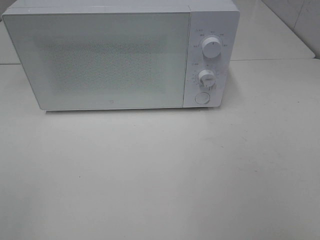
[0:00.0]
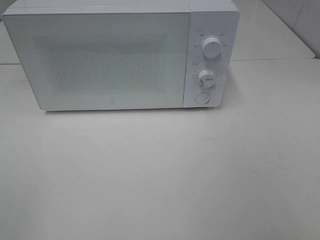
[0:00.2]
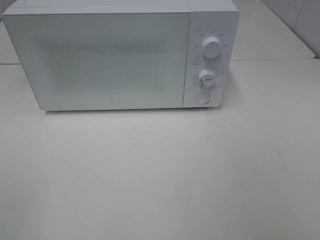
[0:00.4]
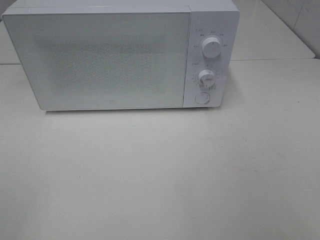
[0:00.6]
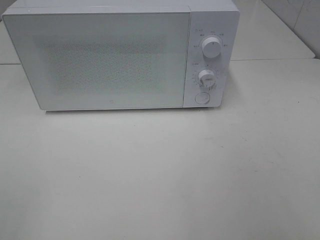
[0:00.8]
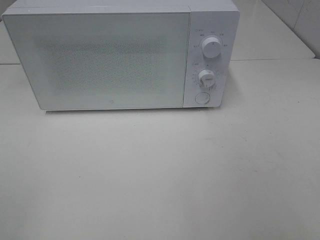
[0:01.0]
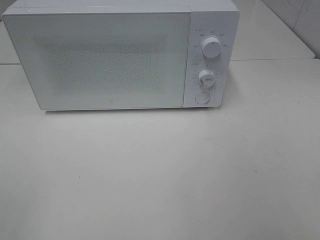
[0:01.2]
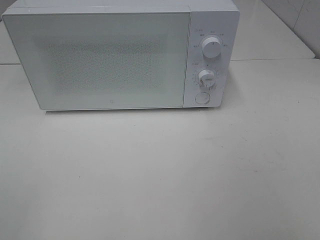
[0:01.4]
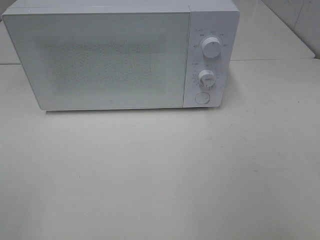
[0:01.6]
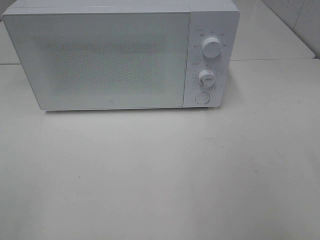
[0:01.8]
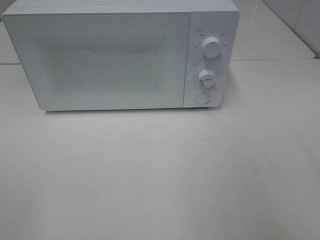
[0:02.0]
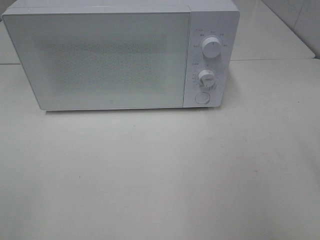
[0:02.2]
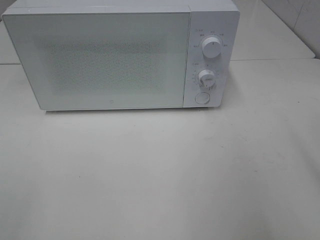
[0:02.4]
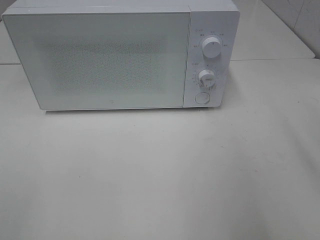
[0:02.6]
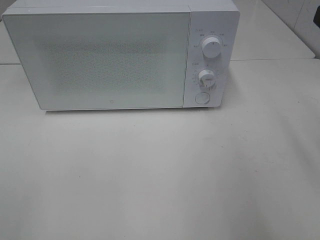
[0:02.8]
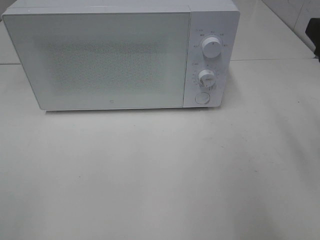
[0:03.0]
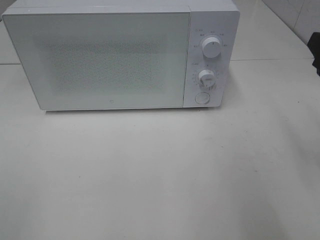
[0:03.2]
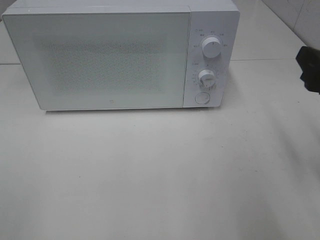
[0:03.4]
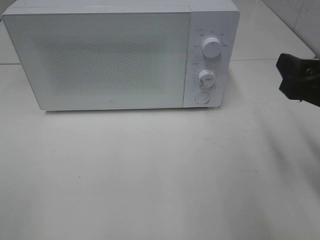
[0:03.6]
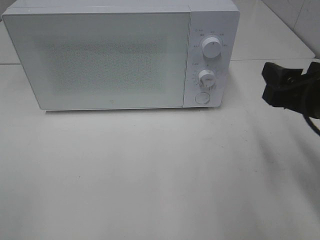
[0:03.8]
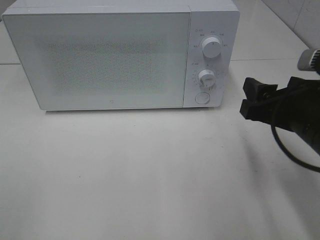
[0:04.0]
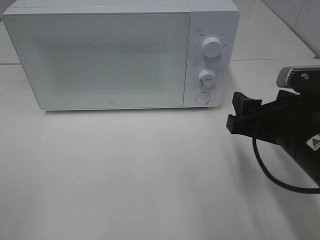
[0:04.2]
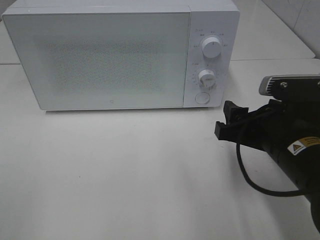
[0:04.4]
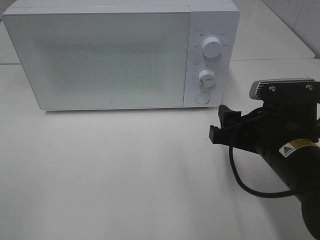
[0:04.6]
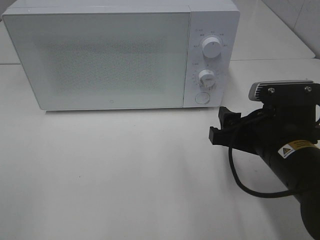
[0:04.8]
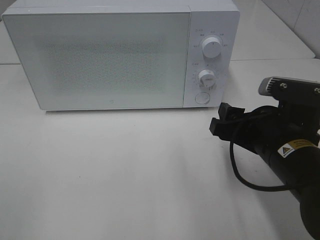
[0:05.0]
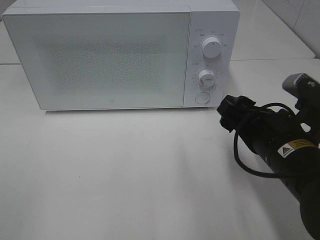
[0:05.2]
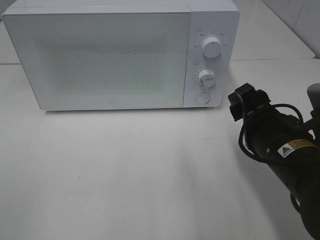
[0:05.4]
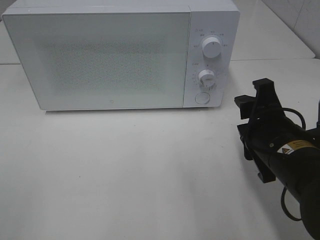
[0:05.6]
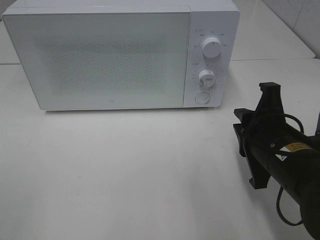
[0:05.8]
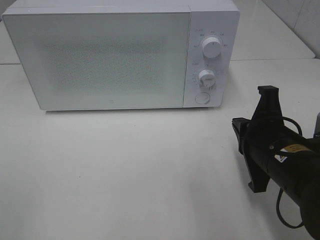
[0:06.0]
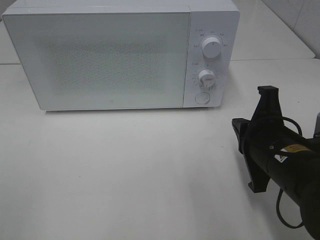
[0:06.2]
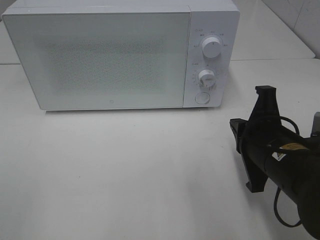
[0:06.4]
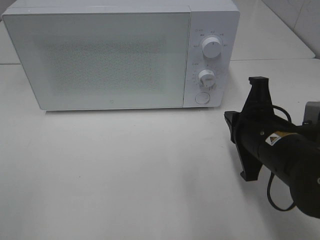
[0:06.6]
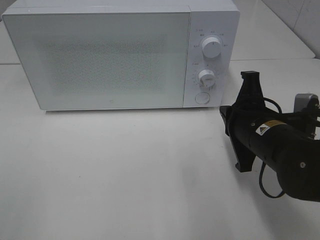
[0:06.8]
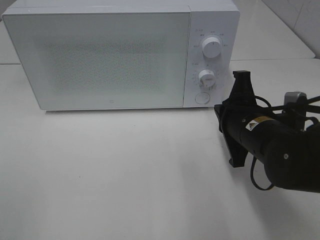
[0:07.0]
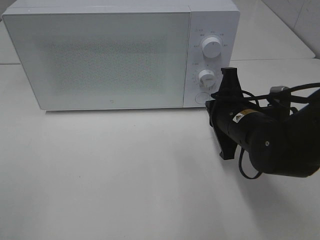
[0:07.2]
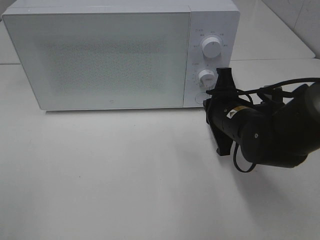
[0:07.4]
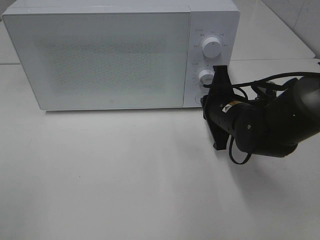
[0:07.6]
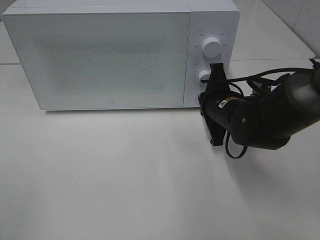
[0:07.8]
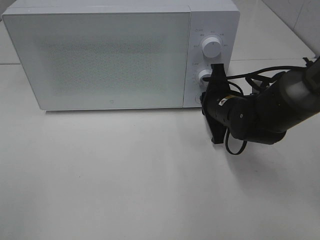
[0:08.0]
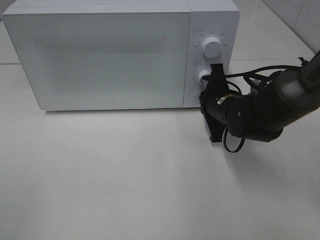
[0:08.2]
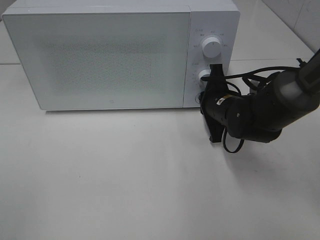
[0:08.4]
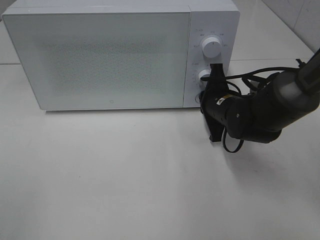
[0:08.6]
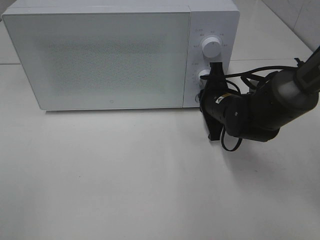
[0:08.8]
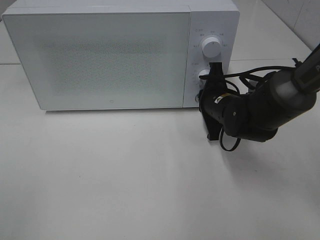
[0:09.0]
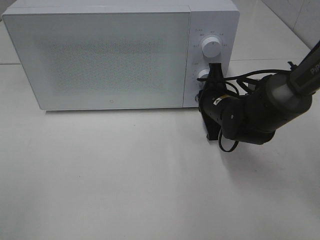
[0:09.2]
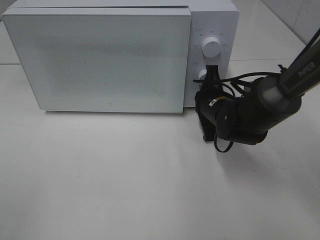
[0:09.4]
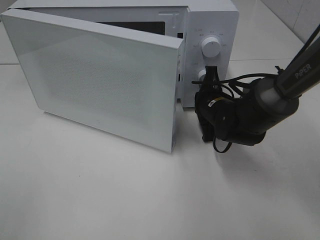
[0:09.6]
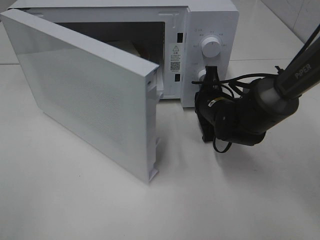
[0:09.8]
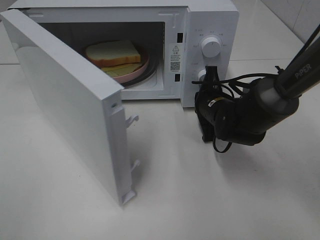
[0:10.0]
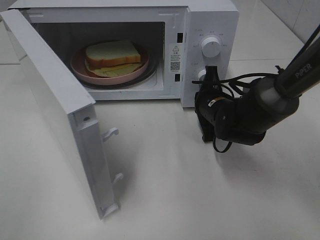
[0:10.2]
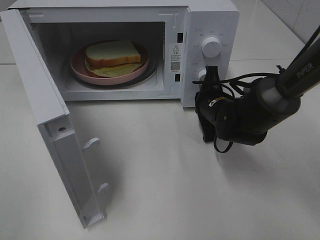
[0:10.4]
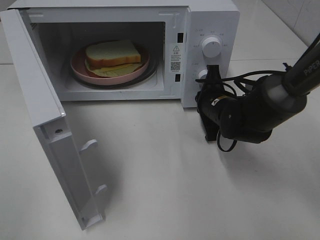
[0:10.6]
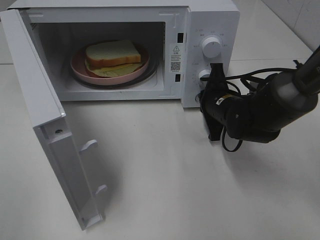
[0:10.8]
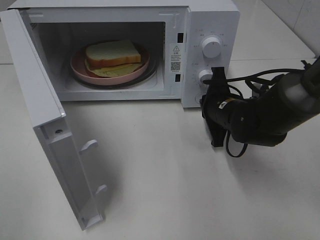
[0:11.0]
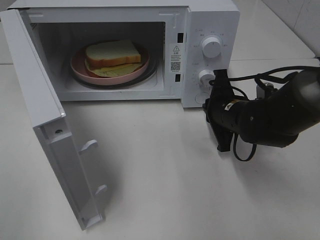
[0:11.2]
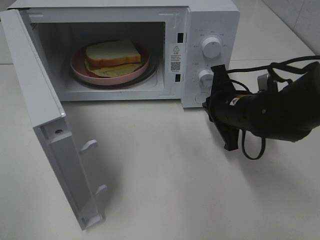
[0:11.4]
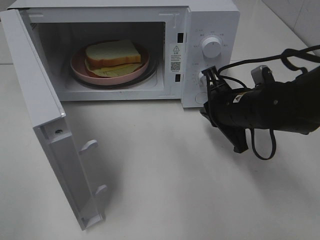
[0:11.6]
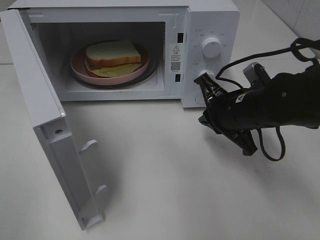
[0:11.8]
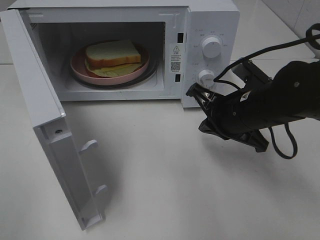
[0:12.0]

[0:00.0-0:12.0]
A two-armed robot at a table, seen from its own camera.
Task of the whole recording: Heat Sandwich.
Step, 0:00.0 to 0:11.2: Right hand: press the switch.
0:03.0 to 0:04.4: The right gripper is displaced downward and to the left by approximately 15 cm.
0:04.4 to 0:06.0: The right gripper closes.
0:06.0 to 0:07.6: The right gripper moves forward, about 10 cm.
0:07.6 to 0:09.0: There are only small adjustments of the grippers.
0:10.4 to 0:12.0: The right gripper heads backward and upward, covering some 10 cm.

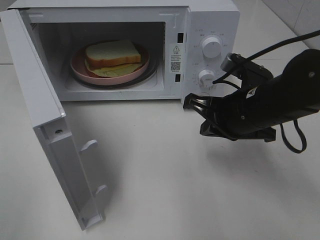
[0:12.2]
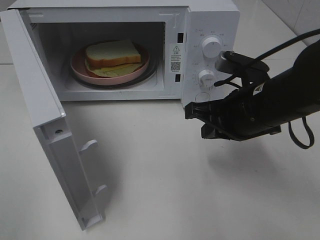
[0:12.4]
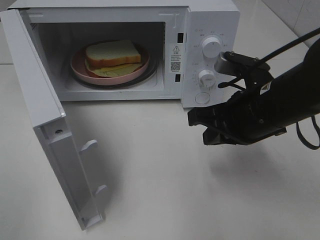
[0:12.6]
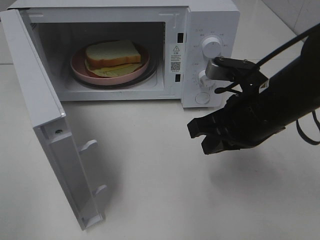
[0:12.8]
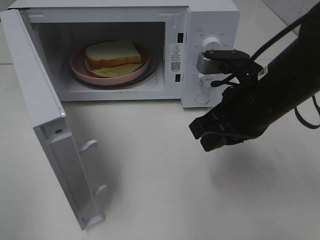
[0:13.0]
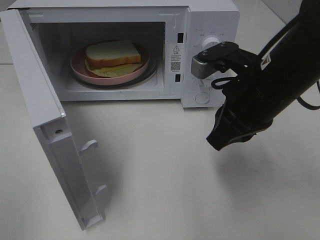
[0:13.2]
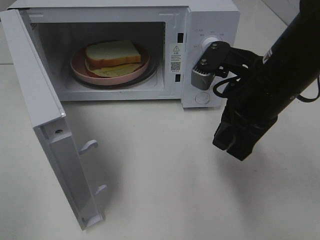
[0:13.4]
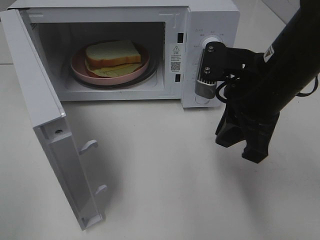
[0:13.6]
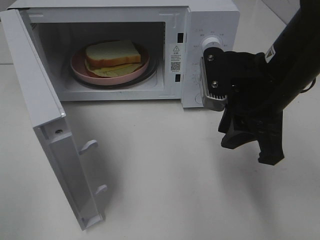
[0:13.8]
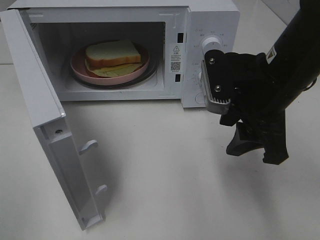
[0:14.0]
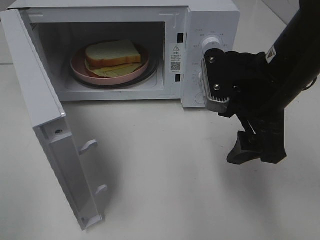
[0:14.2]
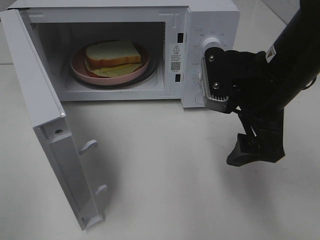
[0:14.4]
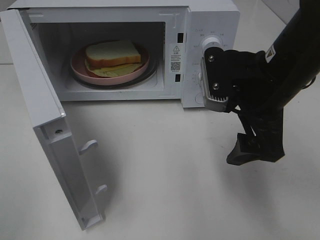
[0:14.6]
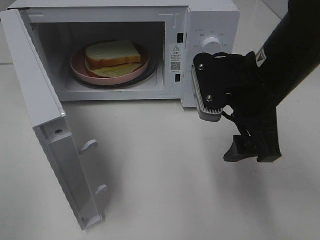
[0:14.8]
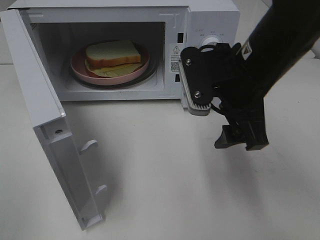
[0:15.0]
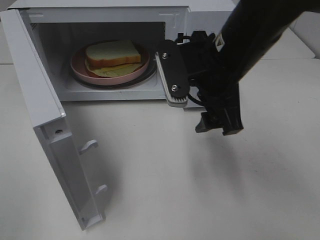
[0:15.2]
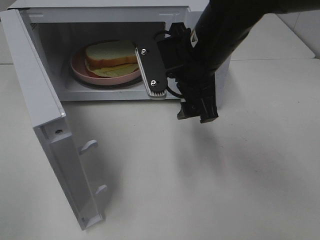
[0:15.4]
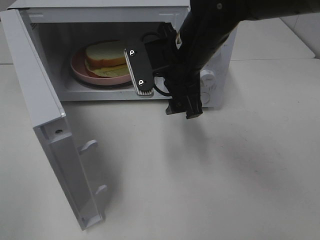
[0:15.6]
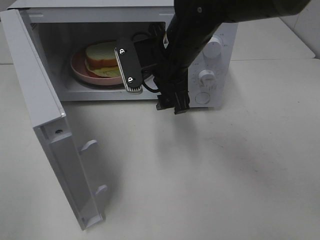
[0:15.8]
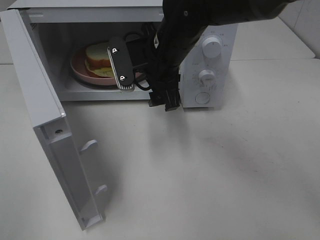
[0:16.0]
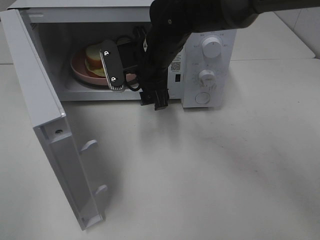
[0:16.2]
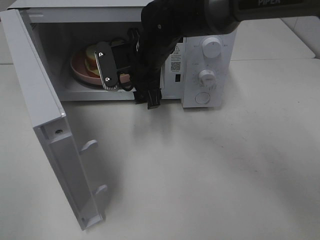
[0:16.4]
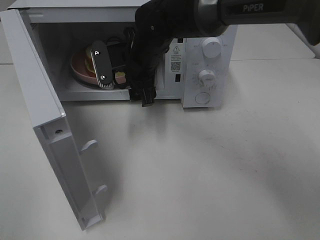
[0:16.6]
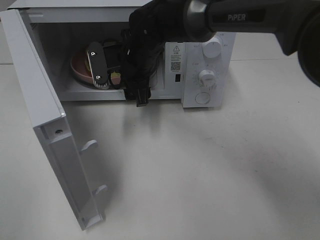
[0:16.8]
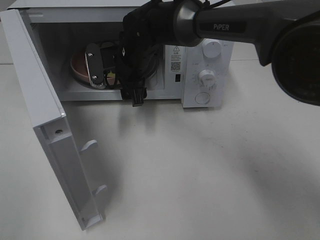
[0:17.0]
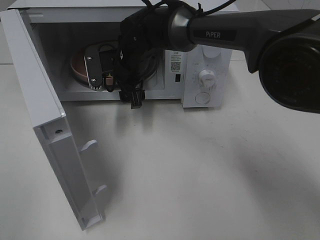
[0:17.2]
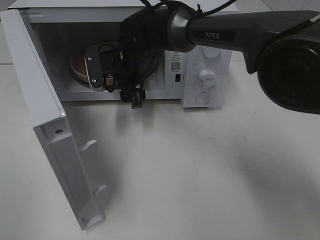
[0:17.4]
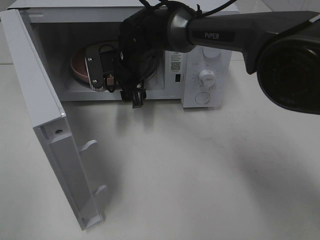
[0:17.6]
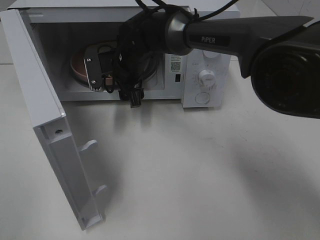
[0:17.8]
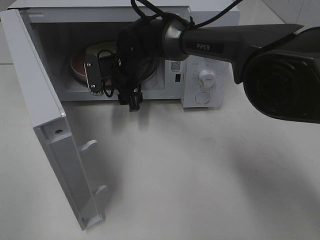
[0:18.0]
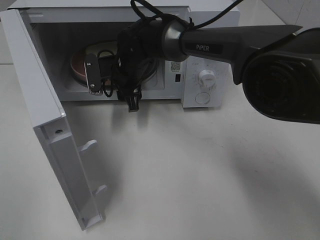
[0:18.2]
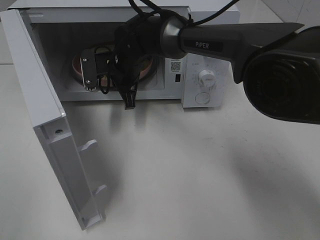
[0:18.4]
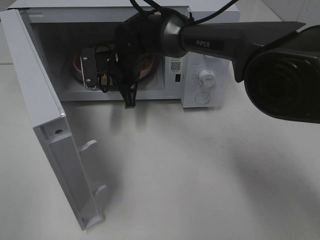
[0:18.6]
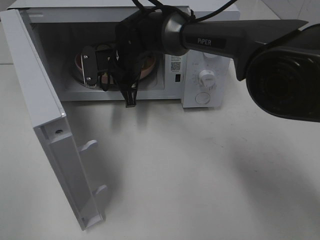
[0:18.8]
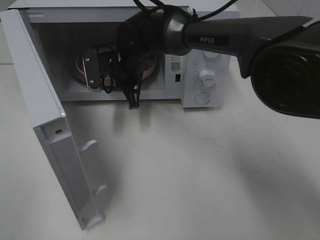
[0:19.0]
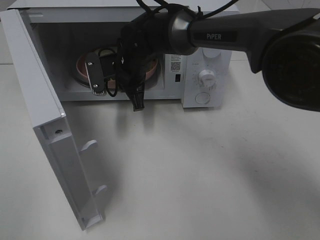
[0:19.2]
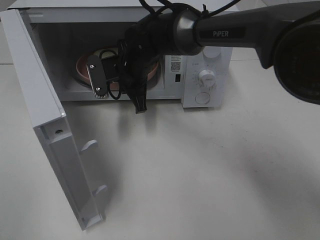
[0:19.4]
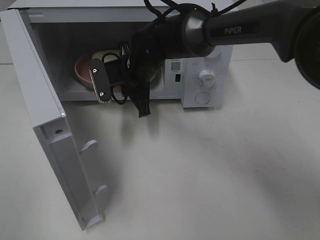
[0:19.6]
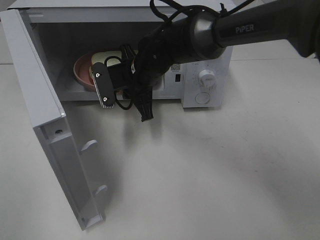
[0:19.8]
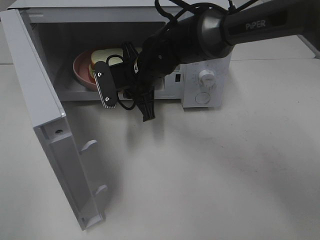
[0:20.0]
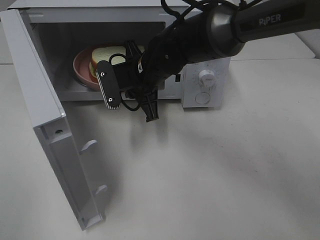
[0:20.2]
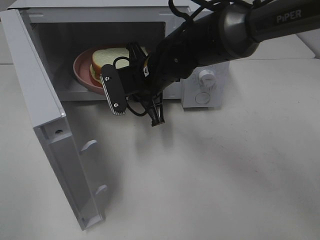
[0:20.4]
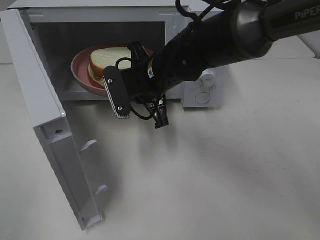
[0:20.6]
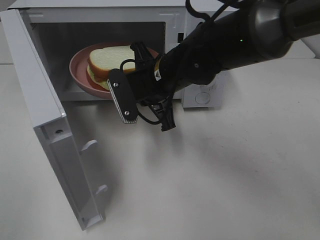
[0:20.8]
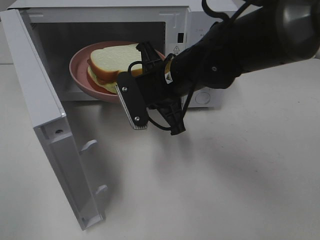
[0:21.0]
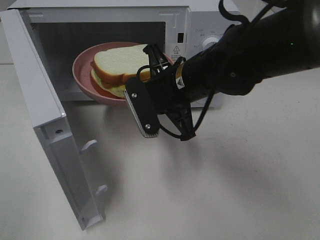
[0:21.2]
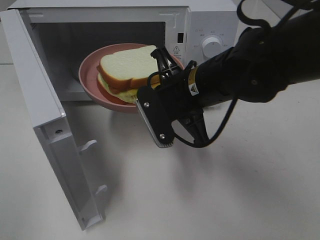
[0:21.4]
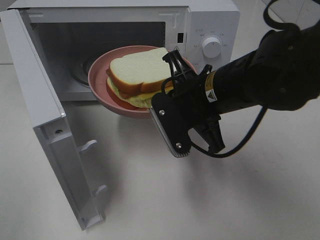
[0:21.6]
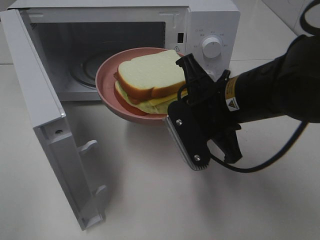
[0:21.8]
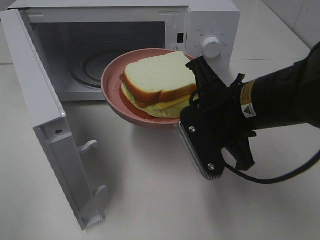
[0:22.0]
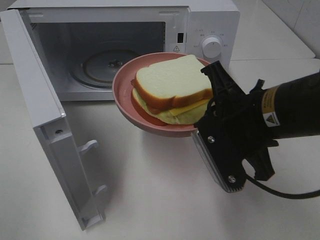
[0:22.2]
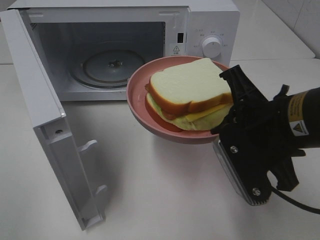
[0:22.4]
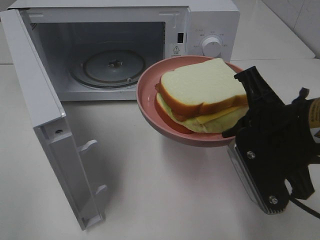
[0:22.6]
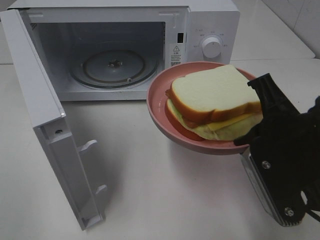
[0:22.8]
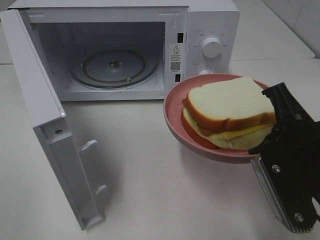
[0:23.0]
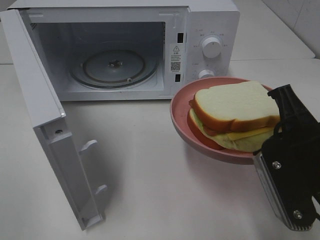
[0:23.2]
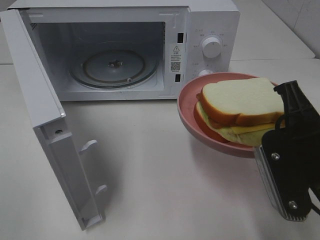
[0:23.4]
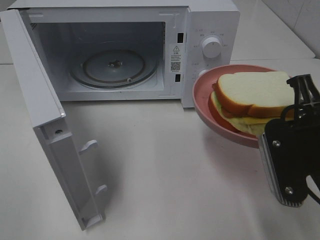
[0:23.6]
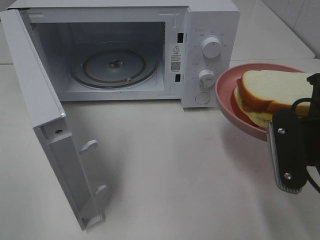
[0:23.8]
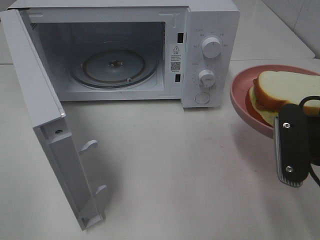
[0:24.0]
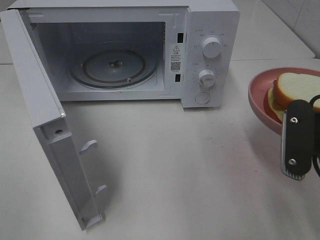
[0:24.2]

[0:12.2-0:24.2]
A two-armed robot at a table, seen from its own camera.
Task of the whole recording: Heat Sandwich.
Step, 0:12.2 to 0:18.6: Right hand: grab the plate with the sandwich.
0:12.2 to 0:13.8: The right gripper moves upward, approximately 5 cm.
0:13.8 to 0:15.2: The right gripper shifts some 5 cm to the left, and opens up.
0:15.2 to 0:16.6: The right gripper goes some 15 cm forward, to the left and downward.
0:16.6 to 0:18.2: The right gripper shifts by approximately 5 cm.
0:18.2 to 0:19.8: The right gripper changes place by roughly 5 cm, and closes.
0:19.8 to 0:21.2: The right gripper goes roughly 10 cm backward and to the right.
0:21.2 to 0:22.6: The right gripper is displaced backward and to the right by roughly 15 cm.
0:22.6 to 0:24.2: The right gripper shifts roughly 5 cm to the right.
